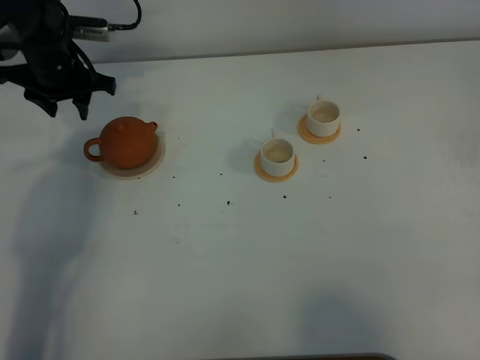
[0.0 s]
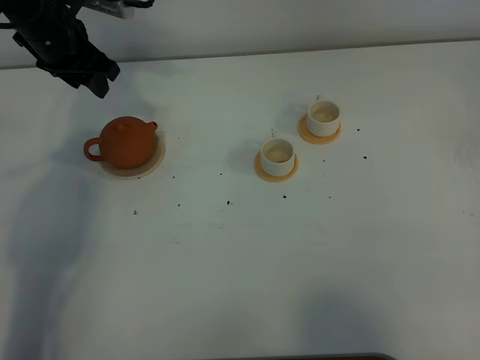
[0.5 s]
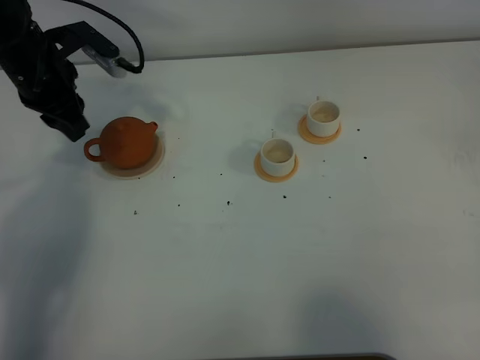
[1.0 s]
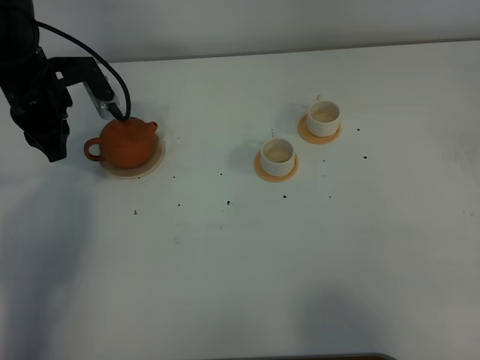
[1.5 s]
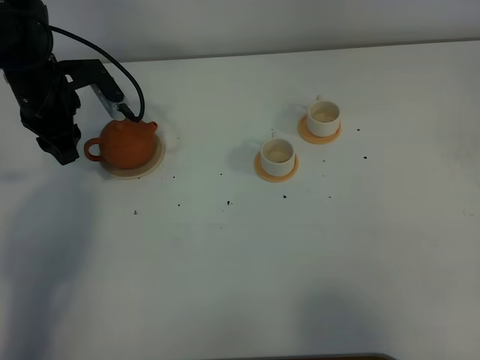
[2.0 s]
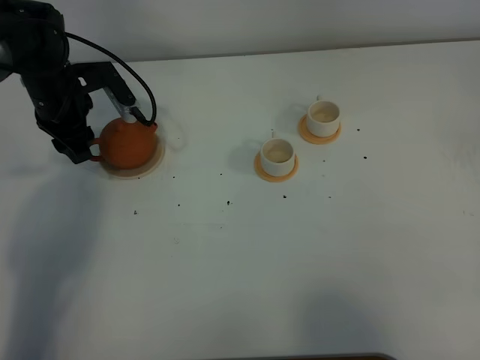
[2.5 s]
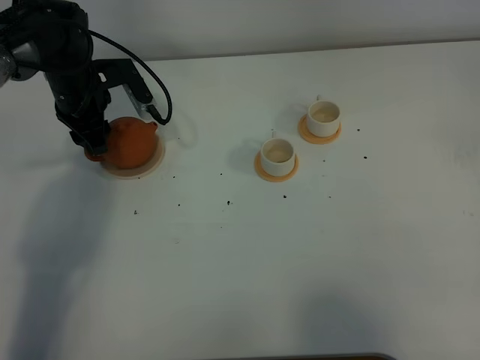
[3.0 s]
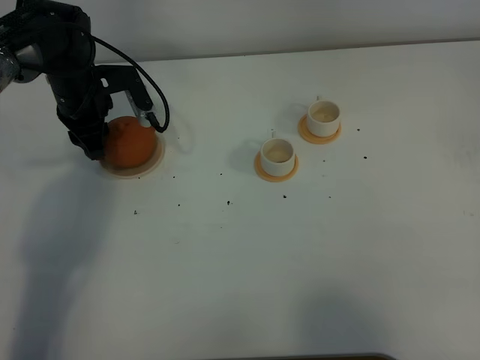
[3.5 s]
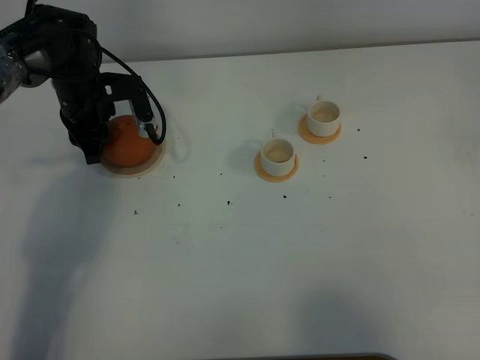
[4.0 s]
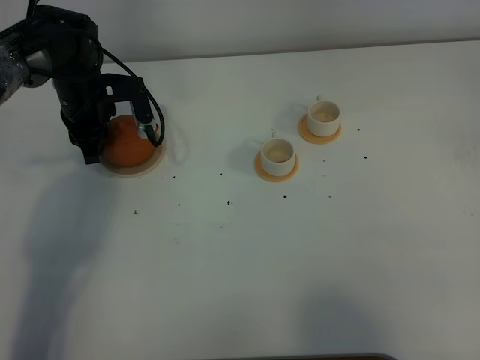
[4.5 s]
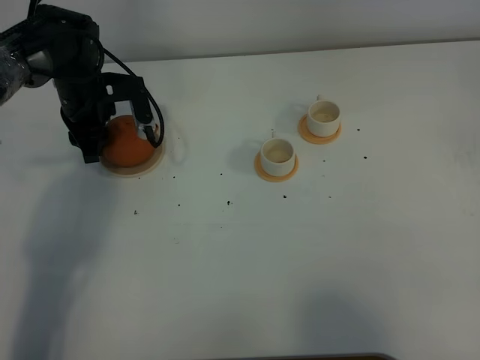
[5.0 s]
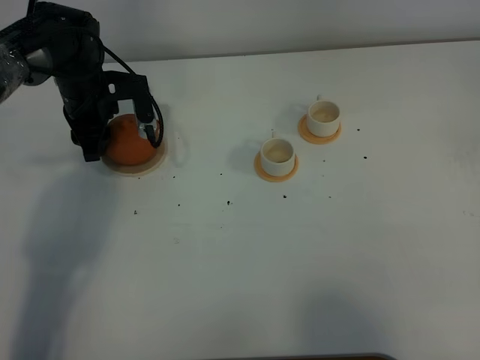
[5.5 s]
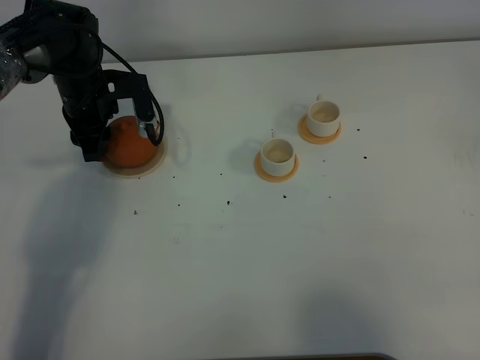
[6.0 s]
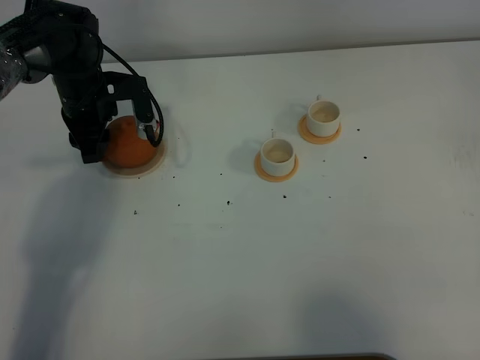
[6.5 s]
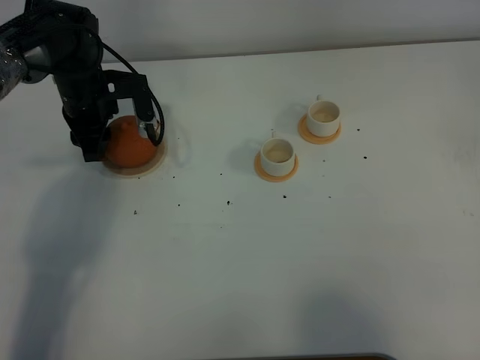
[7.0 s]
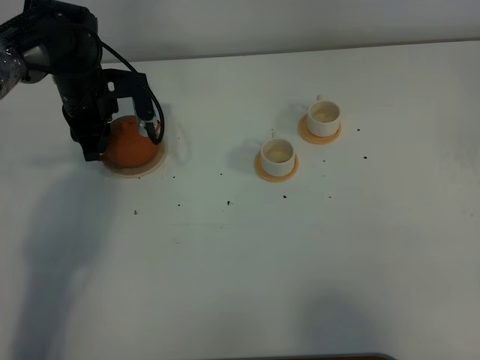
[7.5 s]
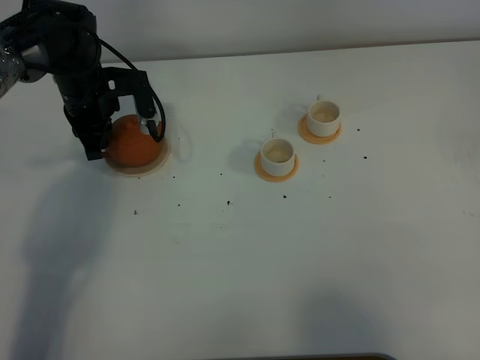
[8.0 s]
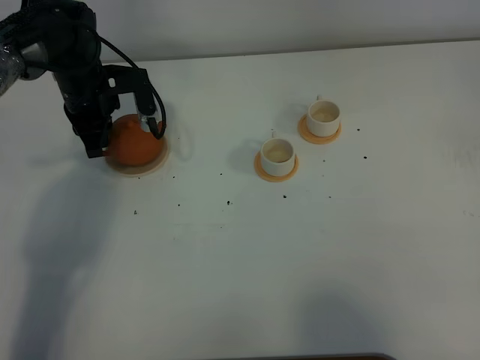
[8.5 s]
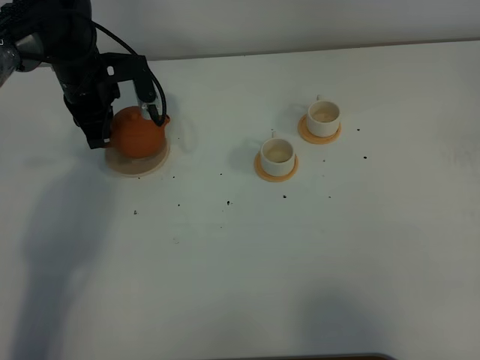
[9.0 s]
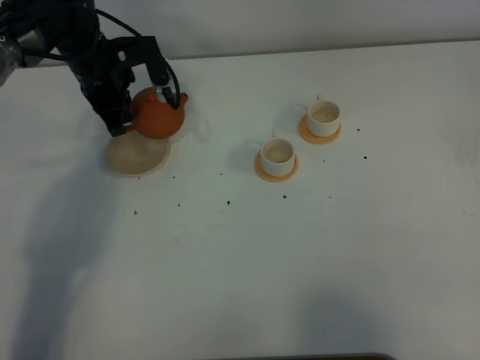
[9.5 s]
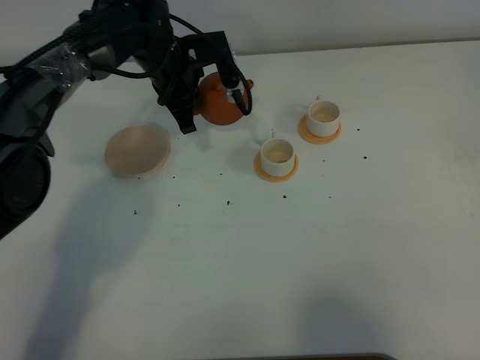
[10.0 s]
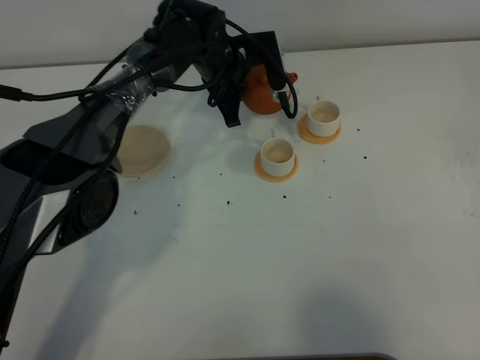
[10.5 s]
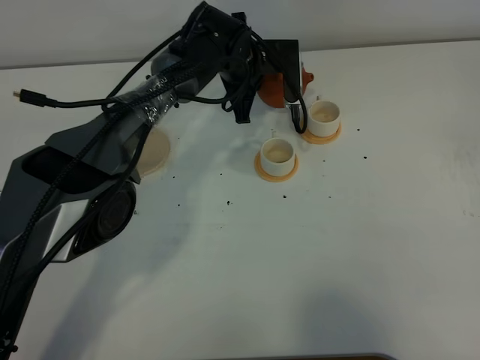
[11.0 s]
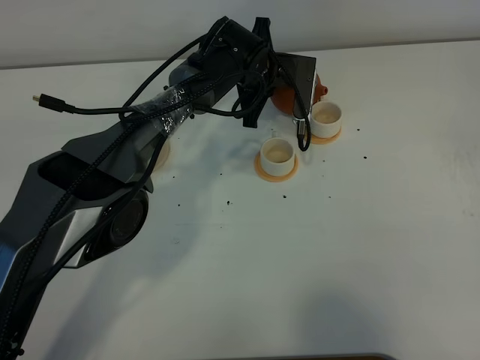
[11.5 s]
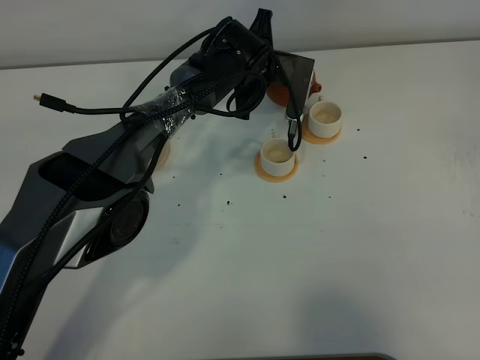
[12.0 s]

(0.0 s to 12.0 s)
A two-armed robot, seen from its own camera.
Task of the whole recording: grasp the brown teapot and pour the tea into the two white teacups one by one, put the brown teapot back in its original place.
Step, 0.0 s - 9.5 s: Pick up the teapot with the left gripper.
0.0 s - 2.0 s: The left gripper is displaced backward by roughly 5 cm, and closes, then opens again.
2.0 s - 4.0 s: The left gripper moves roughly 5 cm, and closes its fingers.
4.0 s - 6.0 s: The left gripper opens its fingers.
6.0 s - 8.0 s: The left gripper closes its fingers.
8.0 s - 10.0 s: The left gripper is displaced to the right by about 10 cm.
10.0 s - 12.0 s: The left gripper moves to the right, about 10 cm.

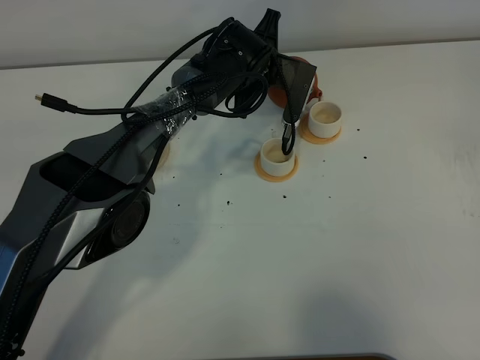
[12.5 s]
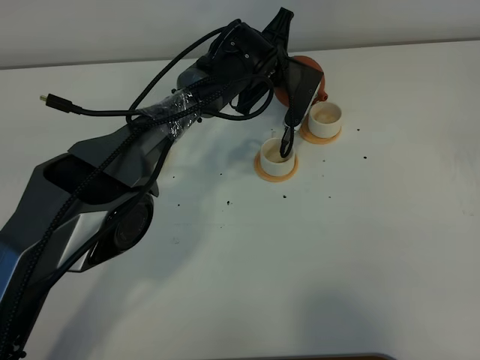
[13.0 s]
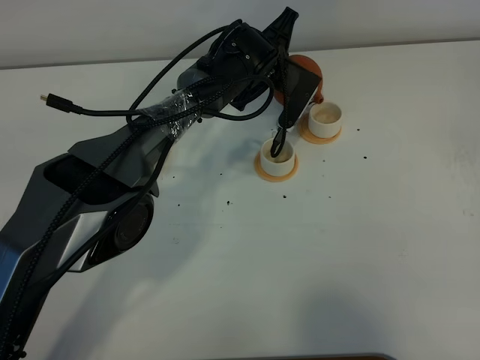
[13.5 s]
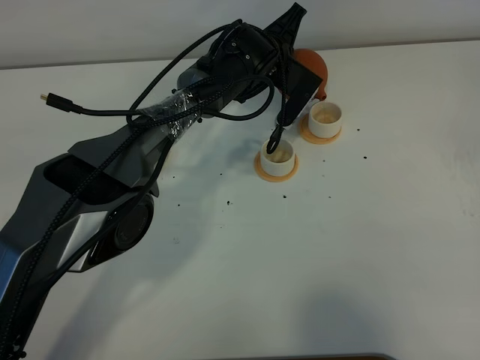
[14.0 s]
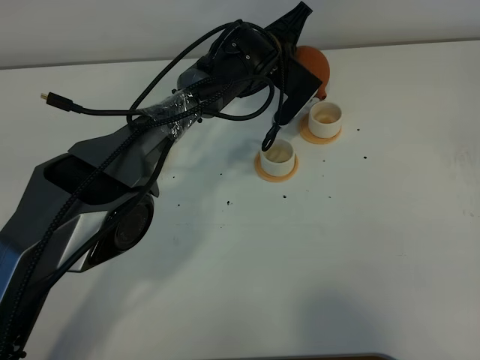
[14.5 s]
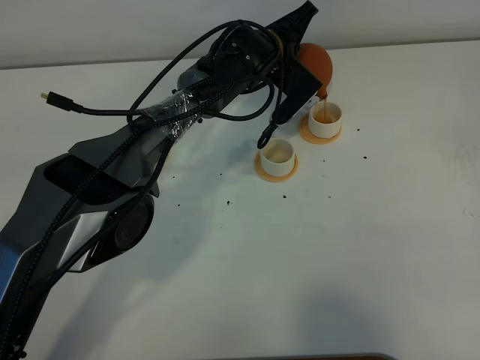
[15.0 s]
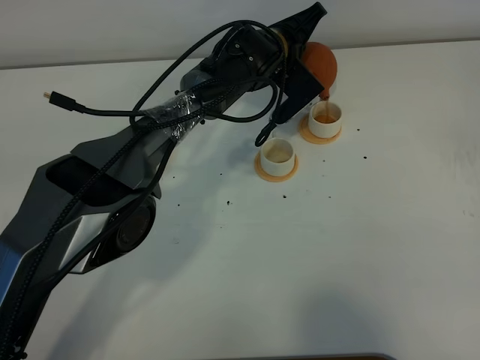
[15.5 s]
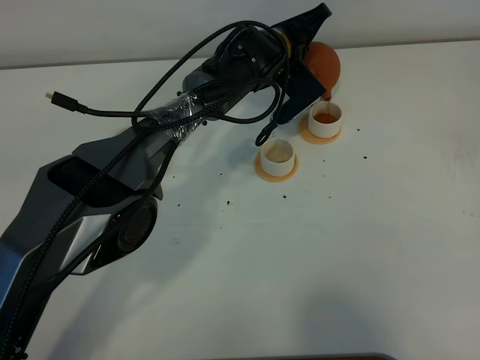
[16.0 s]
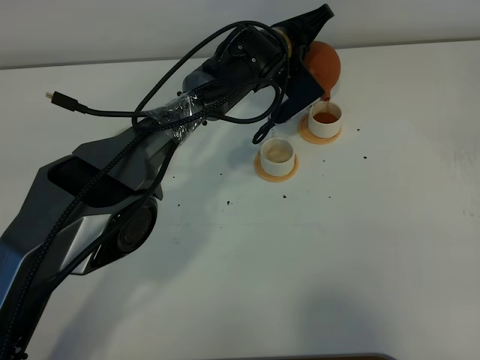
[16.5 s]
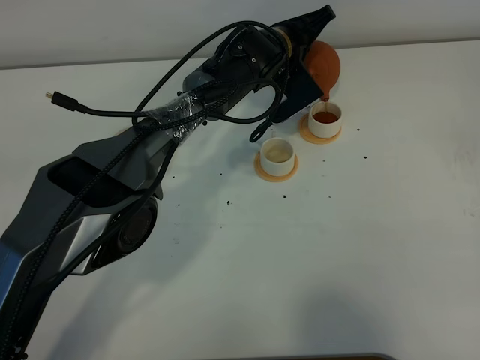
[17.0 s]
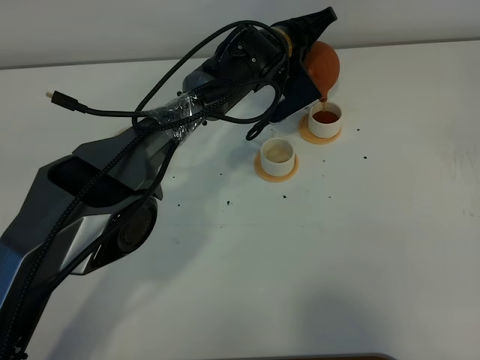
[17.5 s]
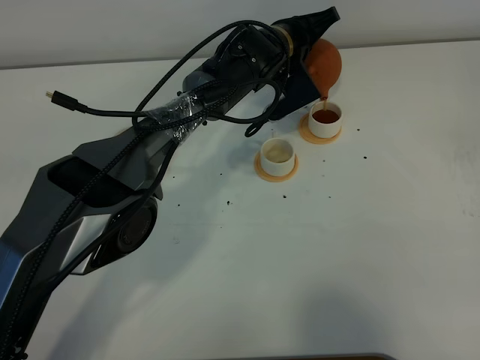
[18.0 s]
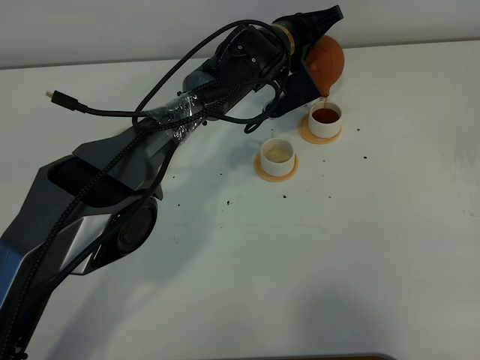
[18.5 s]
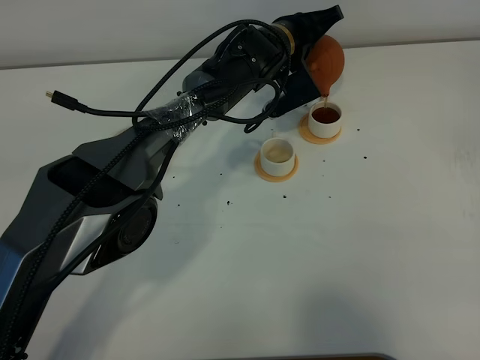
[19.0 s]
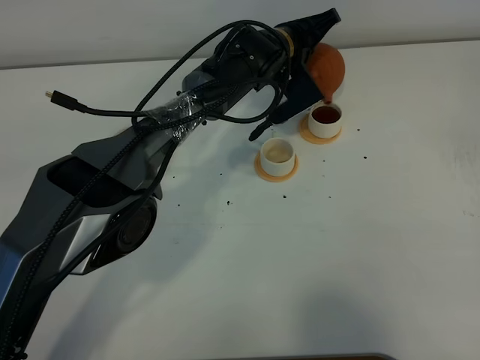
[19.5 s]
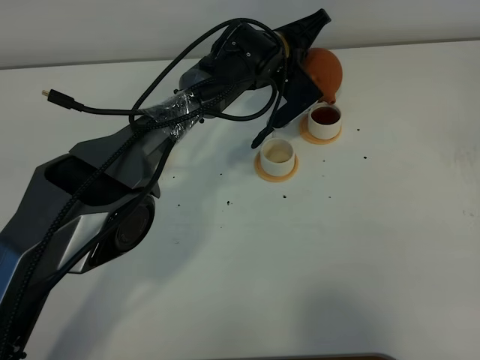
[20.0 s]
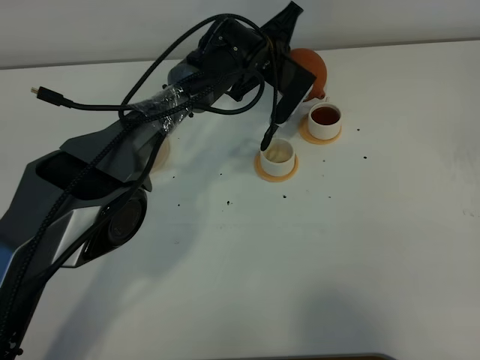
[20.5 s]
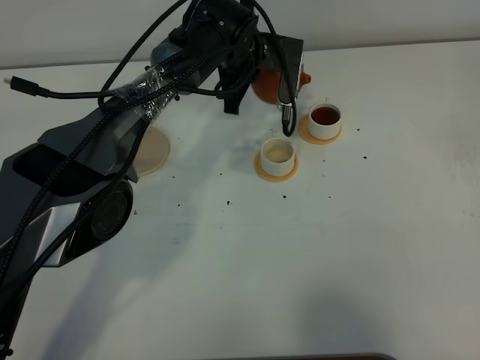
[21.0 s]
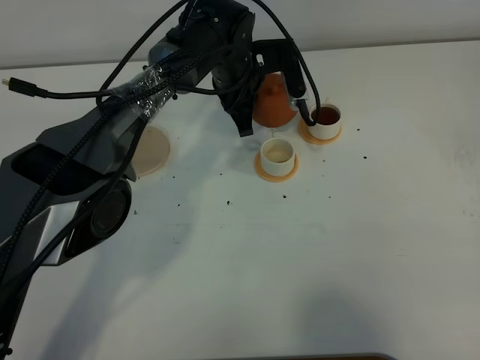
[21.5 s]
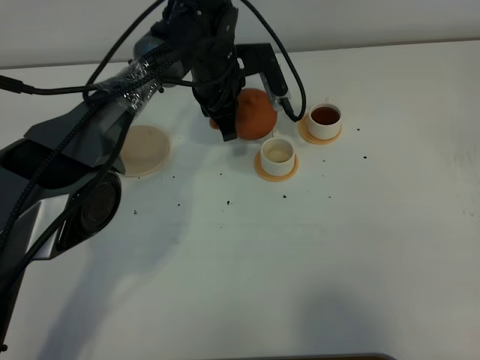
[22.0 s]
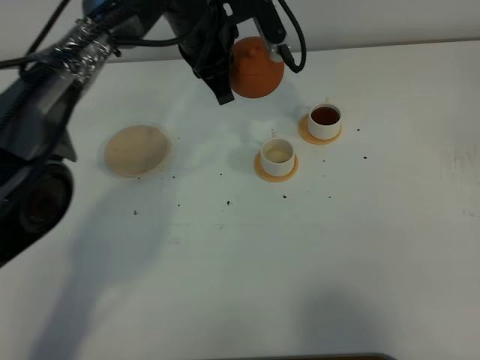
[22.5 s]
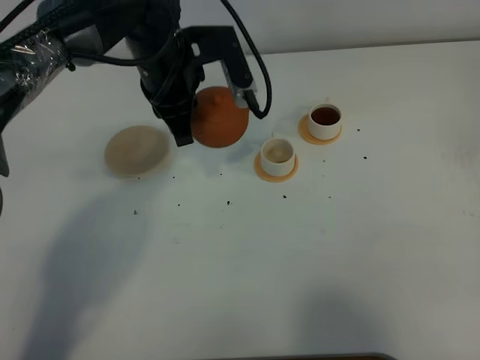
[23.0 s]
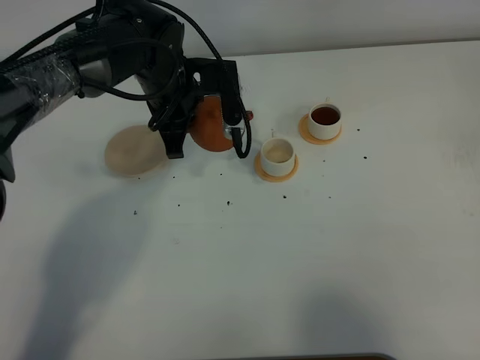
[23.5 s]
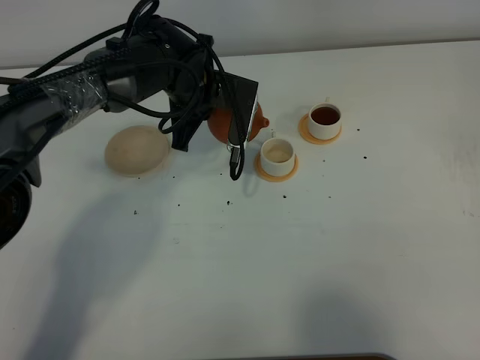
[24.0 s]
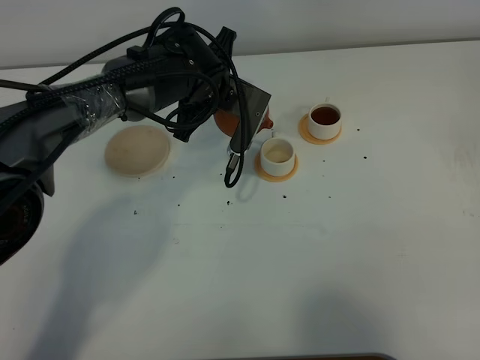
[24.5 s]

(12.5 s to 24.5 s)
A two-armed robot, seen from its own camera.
Task of the whole recording: grasp the brown teapot and pour the tea into the two white teacups one by one, put the brown teapot back in its original place.
14.5 s - 16.5 s: The grippers stay close to where they were, moving slightly.
16.5 s - 18.5 s: The grippers move only a little.
20.5 s - 22.5 s: The left gripper is displaced upward, to the left and backward by some 15 cm.
22.5 s - 24.5 s: The left gripper shifts roughly 10 cm downward.

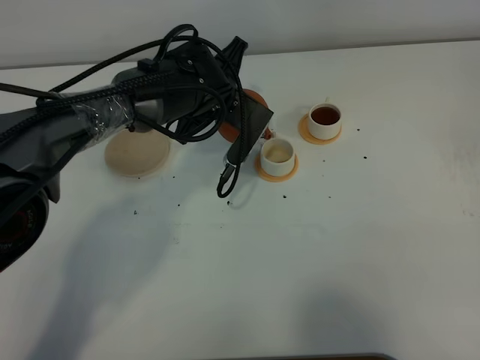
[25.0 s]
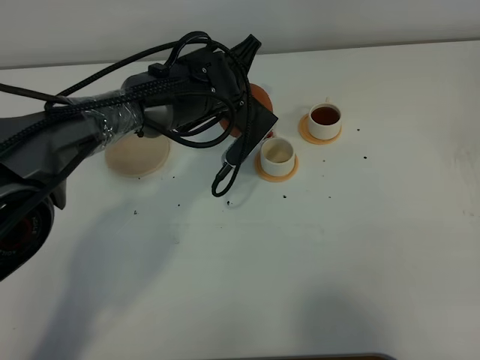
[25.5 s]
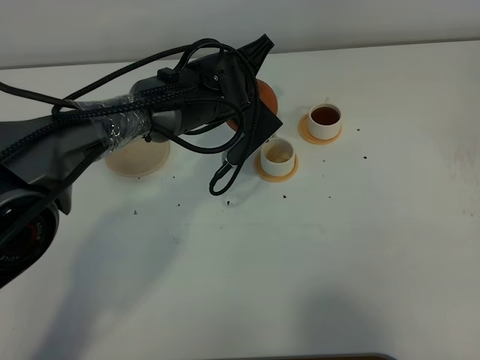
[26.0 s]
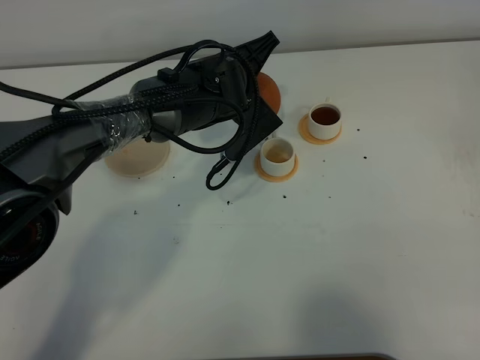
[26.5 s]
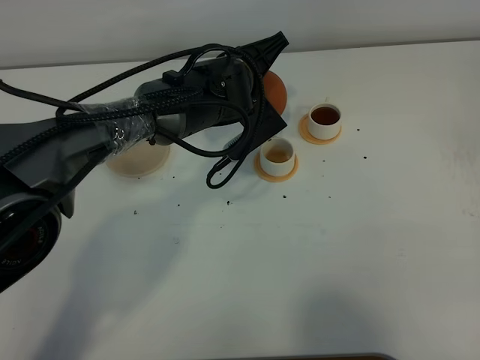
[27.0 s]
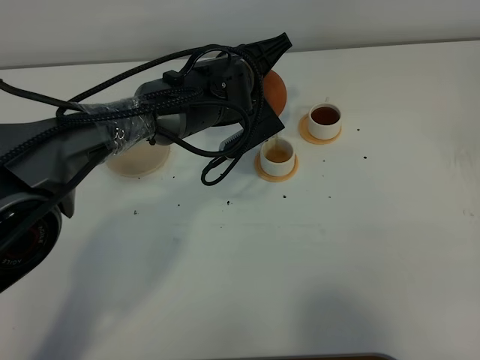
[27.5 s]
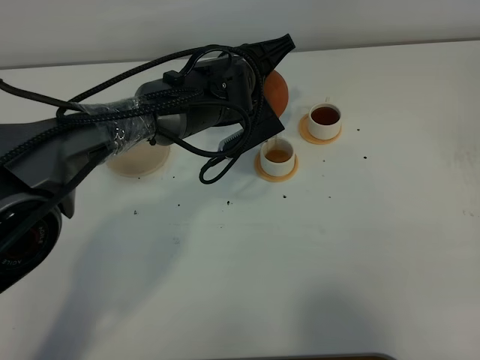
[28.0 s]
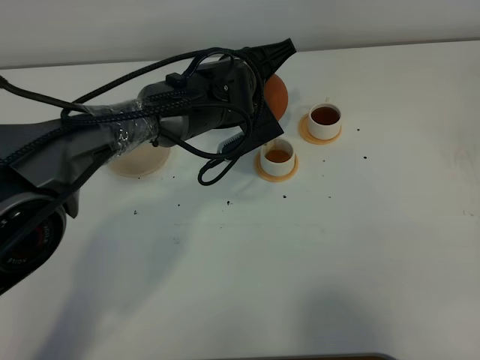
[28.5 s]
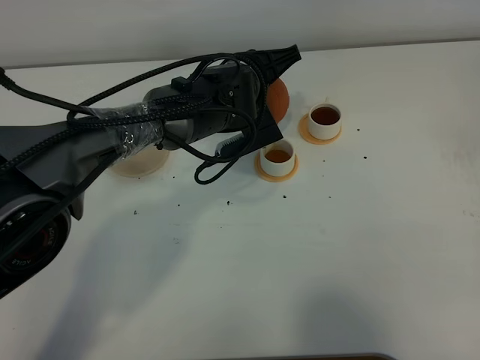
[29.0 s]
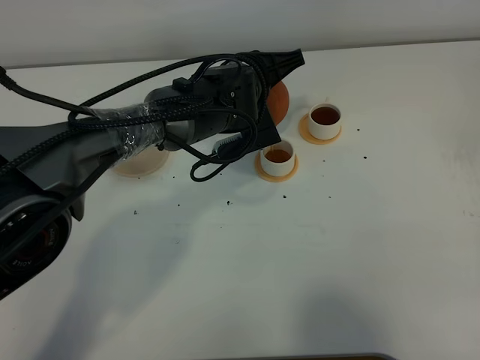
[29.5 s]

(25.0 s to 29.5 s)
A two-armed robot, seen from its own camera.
Task of the whole recording: grasp the brown teapot and pour the tea into the two white teacups one by one, put the brown teapot back in its original place.
27.0 s - 29.5 s: The grippers stay close to where they were, moving slightly.
